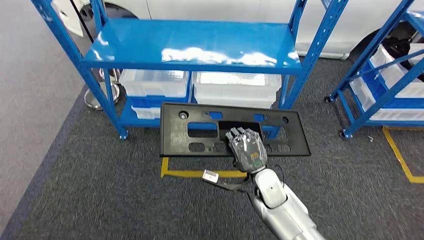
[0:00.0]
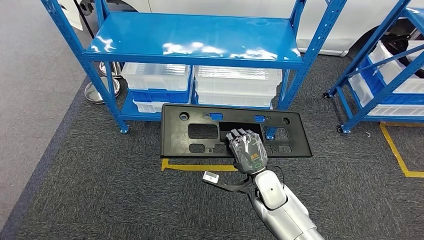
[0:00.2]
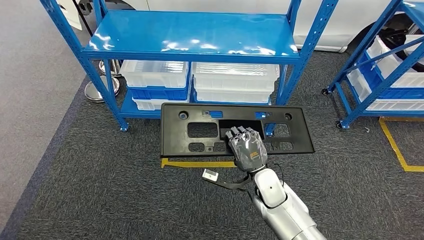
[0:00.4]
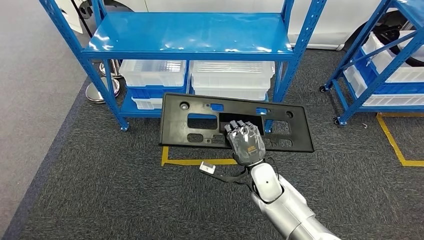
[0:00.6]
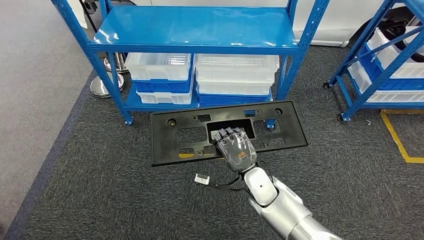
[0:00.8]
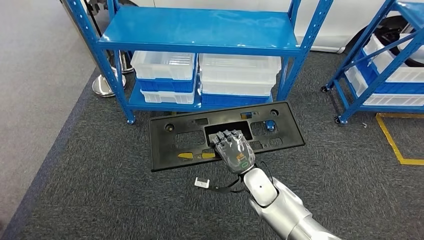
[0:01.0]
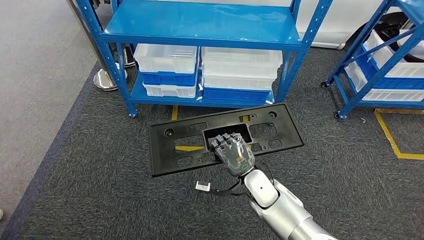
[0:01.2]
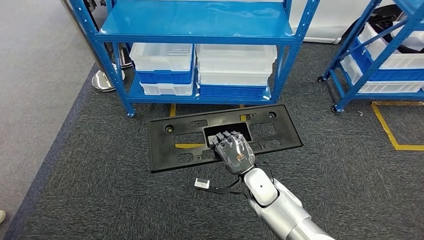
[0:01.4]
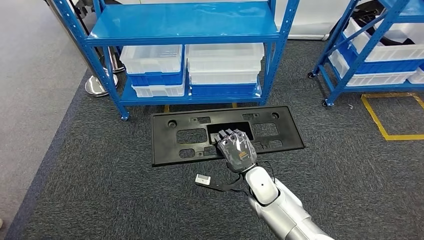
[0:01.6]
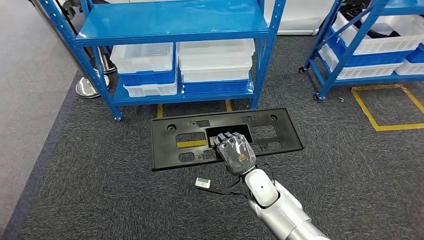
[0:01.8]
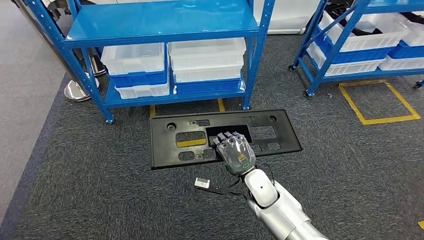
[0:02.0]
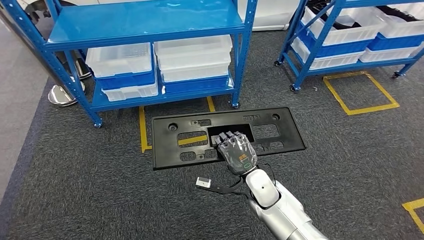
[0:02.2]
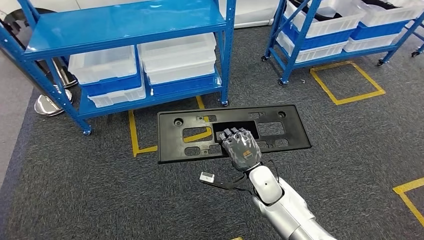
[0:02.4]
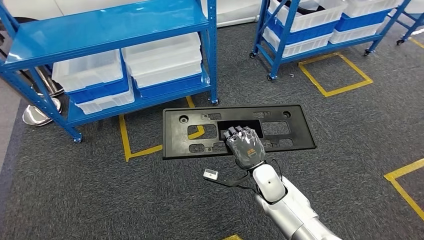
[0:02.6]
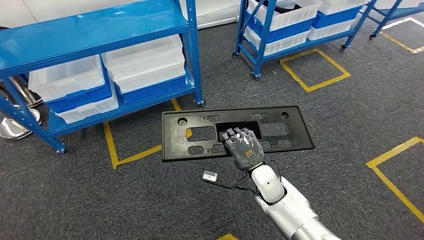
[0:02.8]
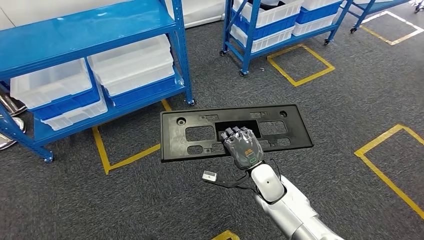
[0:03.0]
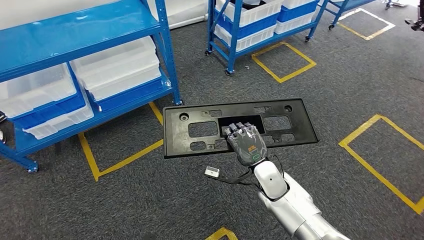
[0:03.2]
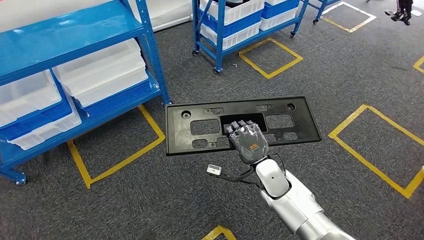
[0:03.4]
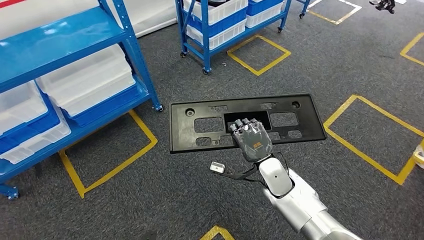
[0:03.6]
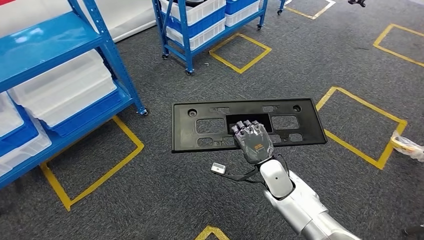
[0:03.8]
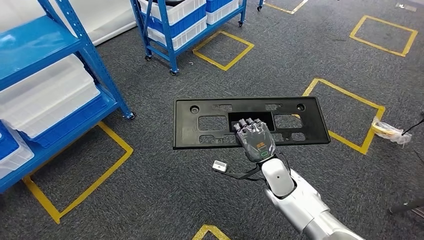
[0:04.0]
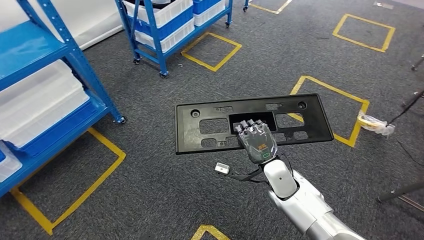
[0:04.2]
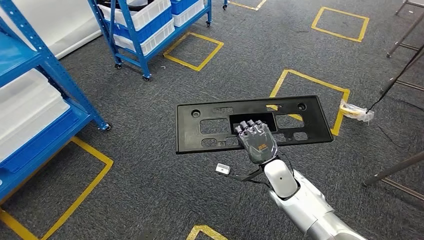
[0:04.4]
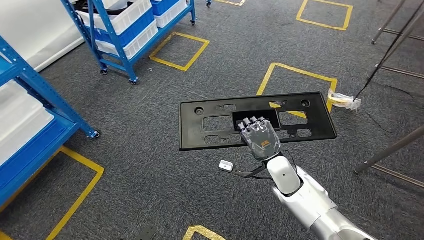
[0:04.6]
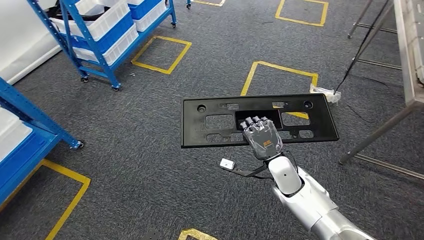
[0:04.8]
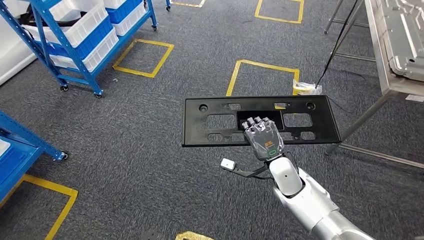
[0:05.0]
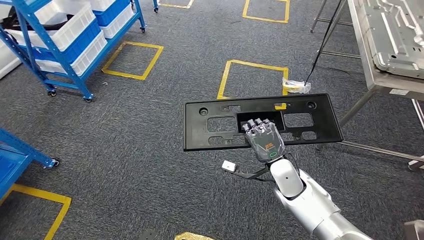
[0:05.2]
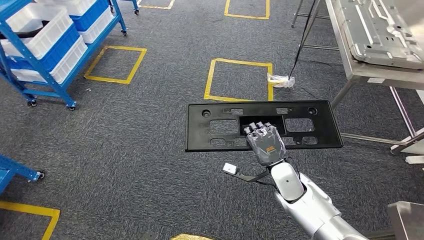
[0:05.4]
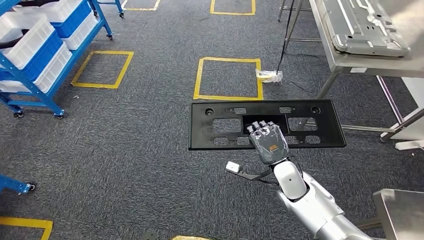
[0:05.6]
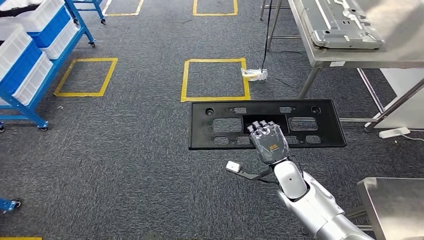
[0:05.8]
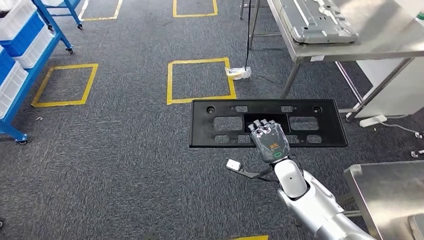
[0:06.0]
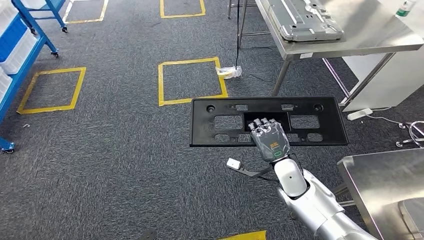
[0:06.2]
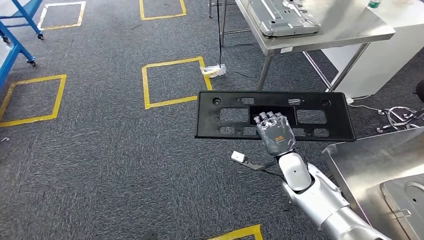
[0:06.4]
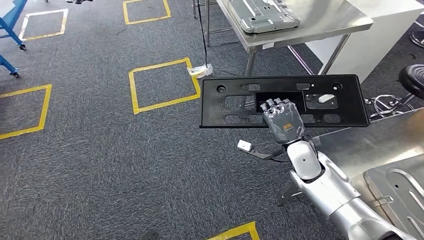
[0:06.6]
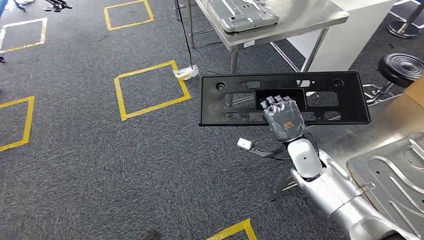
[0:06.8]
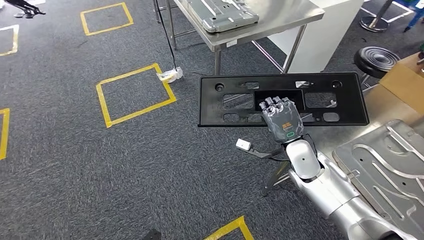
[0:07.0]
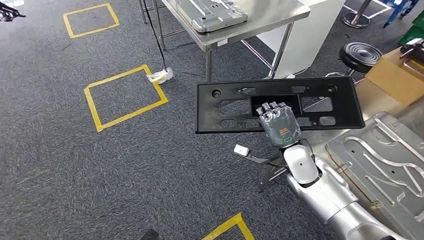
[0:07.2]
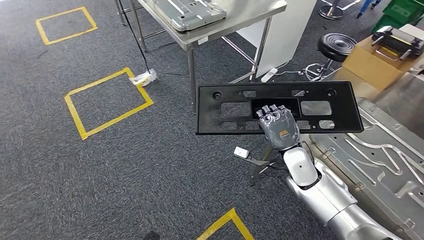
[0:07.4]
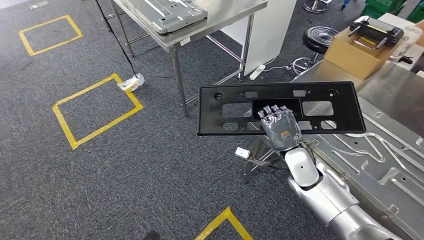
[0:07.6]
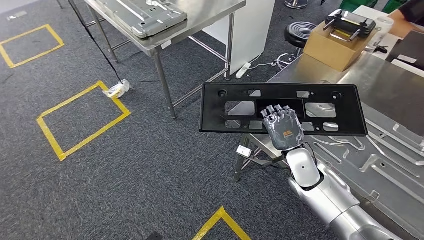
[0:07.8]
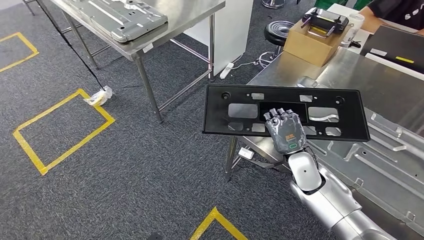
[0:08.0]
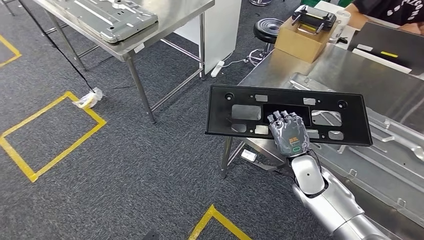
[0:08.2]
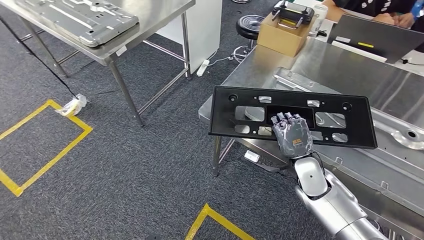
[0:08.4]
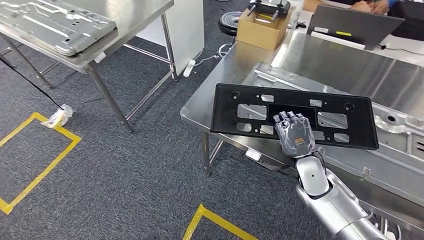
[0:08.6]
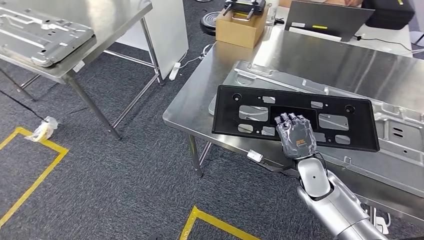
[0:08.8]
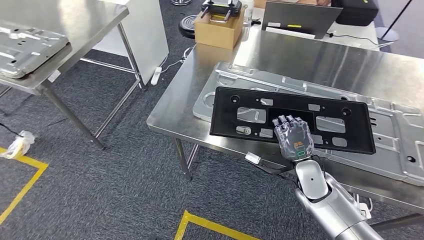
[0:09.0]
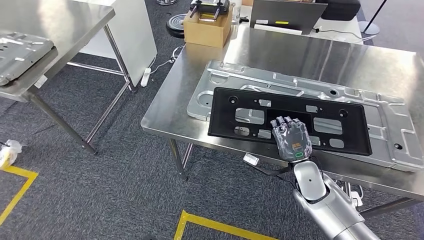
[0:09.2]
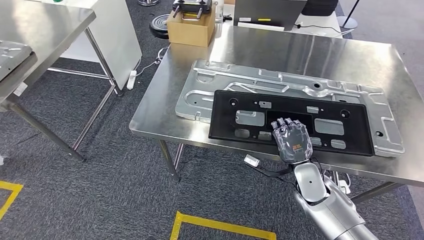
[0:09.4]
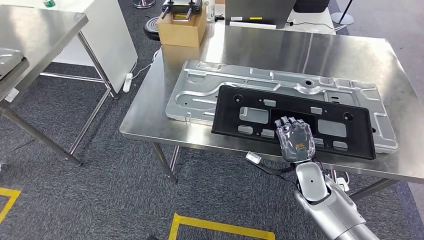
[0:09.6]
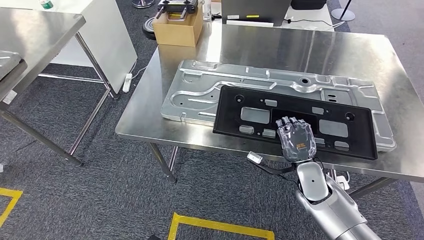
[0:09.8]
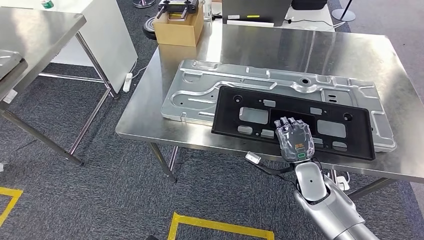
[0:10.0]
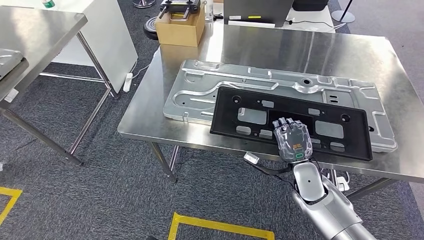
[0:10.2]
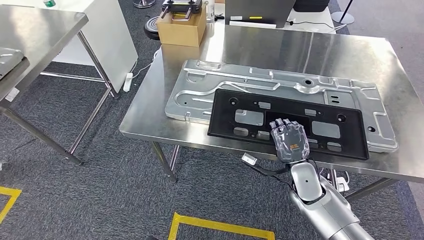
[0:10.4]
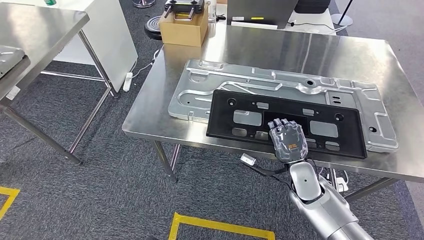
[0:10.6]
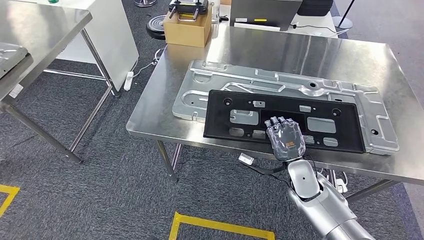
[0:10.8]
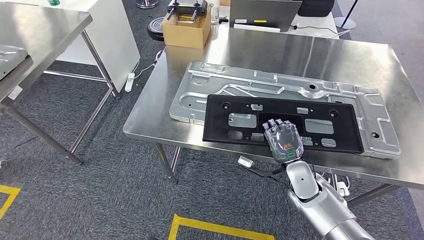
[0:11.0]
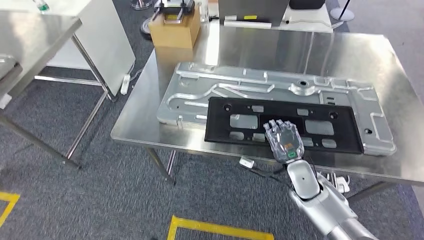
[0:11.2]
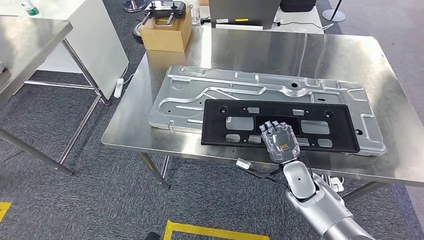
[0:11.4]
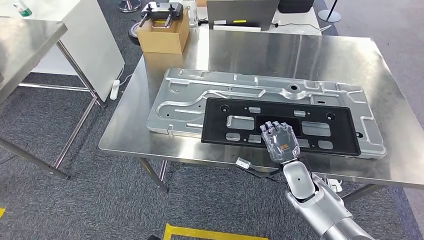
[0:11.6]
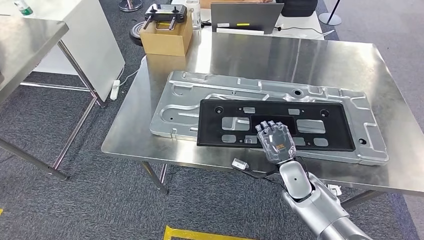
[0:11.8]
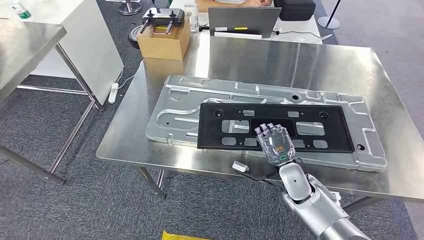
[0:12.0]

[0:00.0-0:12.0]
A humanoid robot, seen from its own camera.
Step, 0:00.0 to 0:06.8: Move the large material to the workbench.

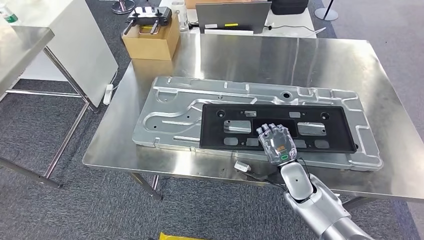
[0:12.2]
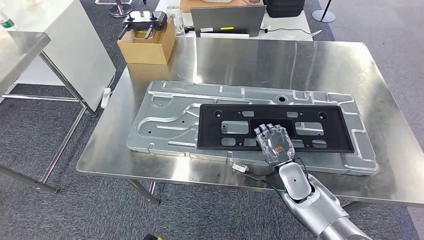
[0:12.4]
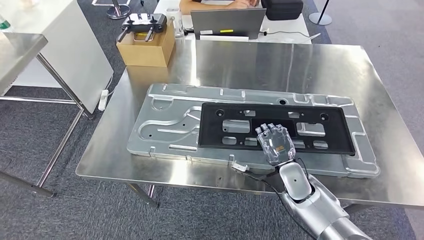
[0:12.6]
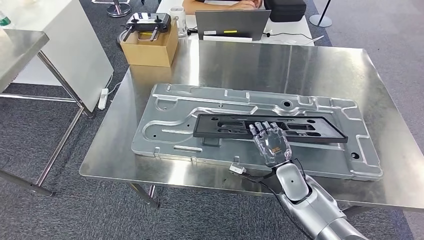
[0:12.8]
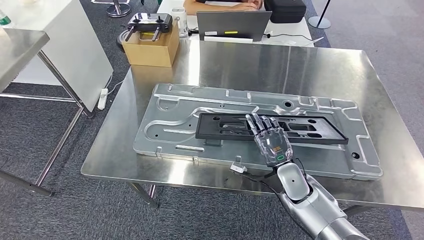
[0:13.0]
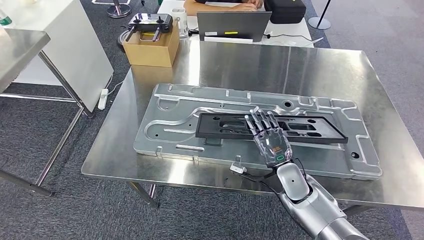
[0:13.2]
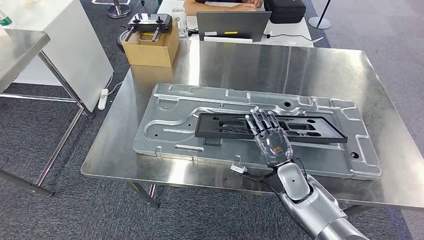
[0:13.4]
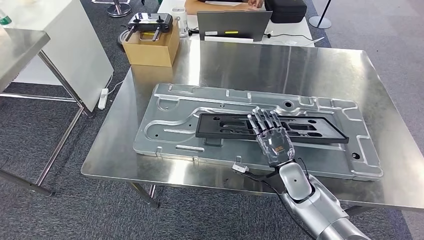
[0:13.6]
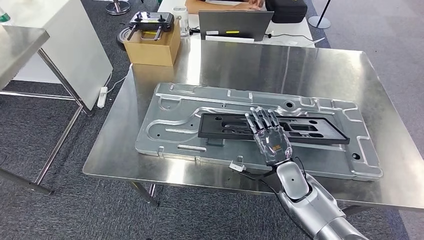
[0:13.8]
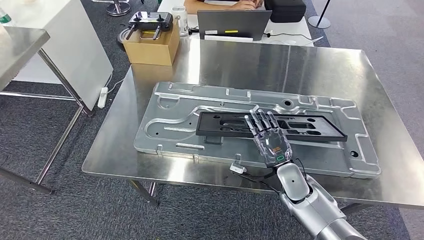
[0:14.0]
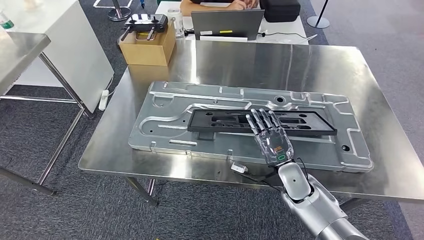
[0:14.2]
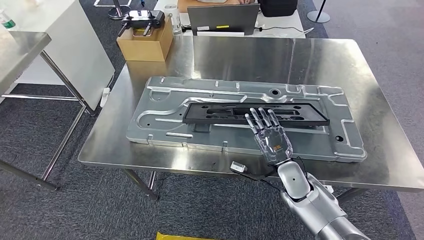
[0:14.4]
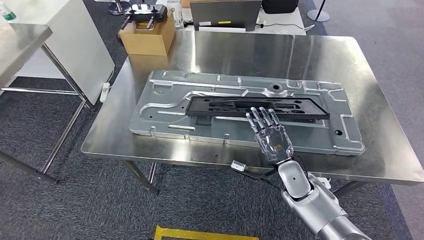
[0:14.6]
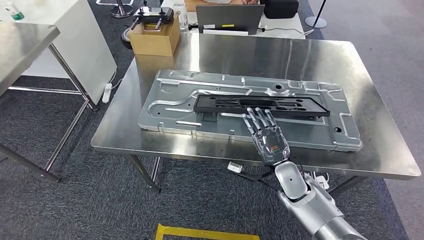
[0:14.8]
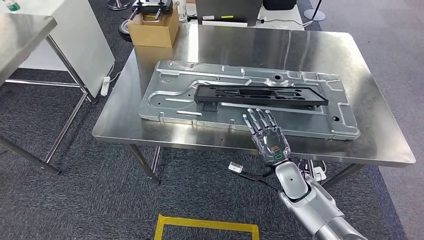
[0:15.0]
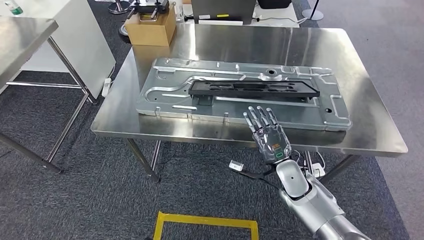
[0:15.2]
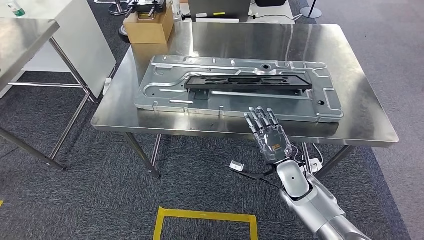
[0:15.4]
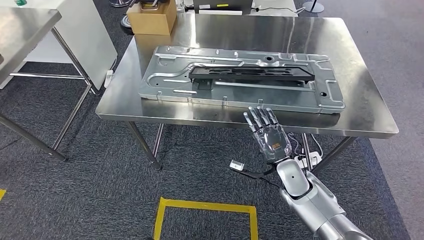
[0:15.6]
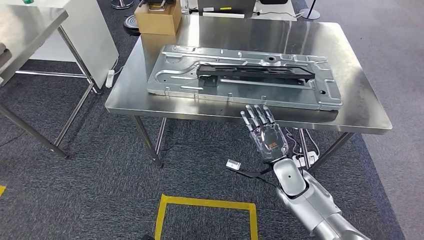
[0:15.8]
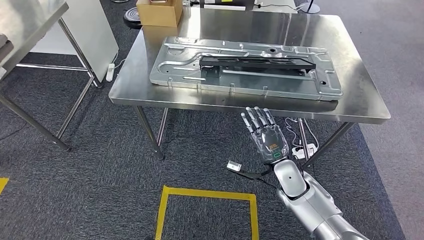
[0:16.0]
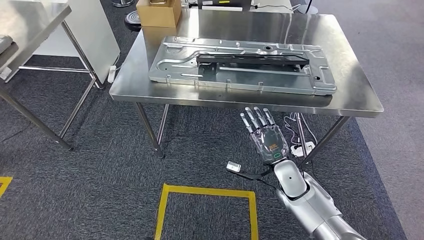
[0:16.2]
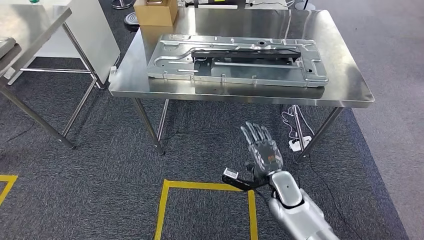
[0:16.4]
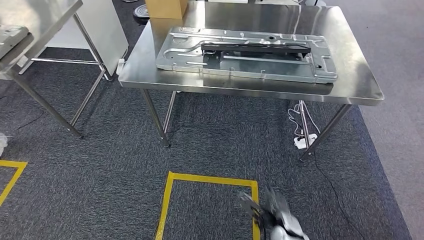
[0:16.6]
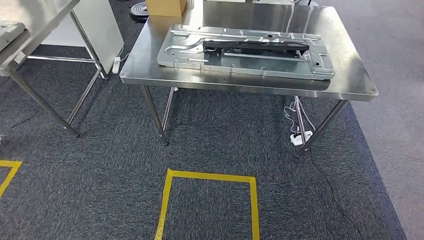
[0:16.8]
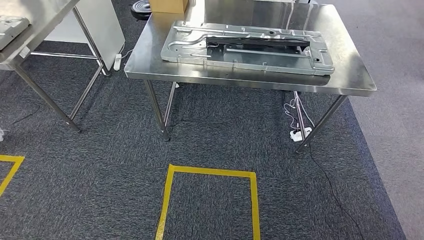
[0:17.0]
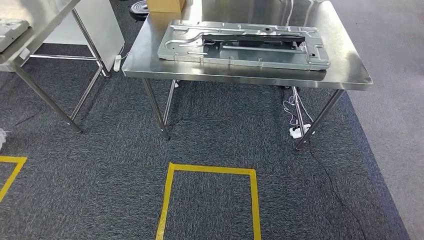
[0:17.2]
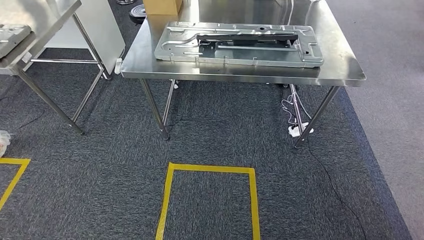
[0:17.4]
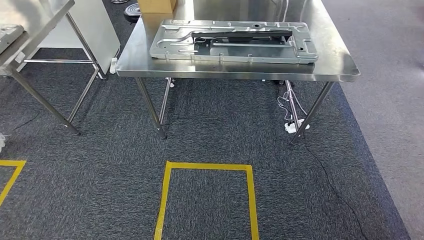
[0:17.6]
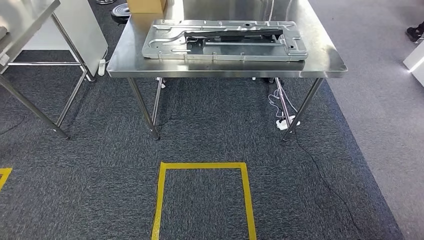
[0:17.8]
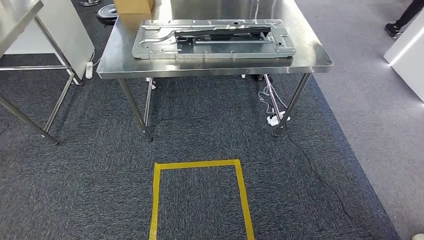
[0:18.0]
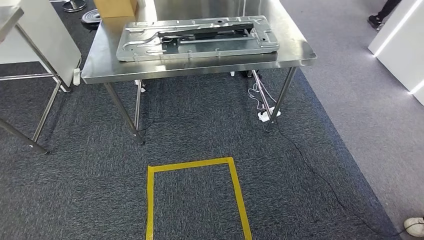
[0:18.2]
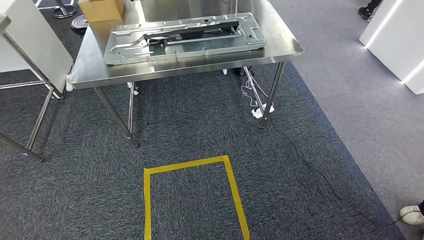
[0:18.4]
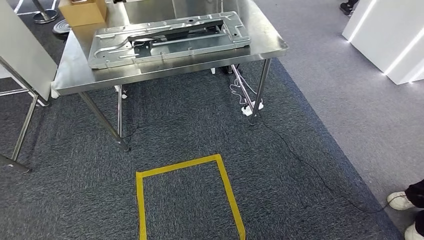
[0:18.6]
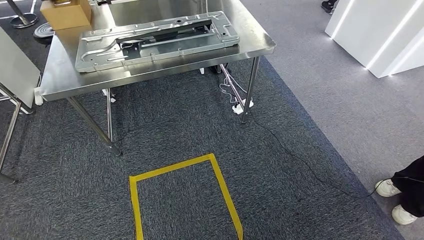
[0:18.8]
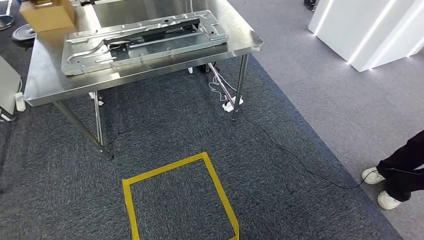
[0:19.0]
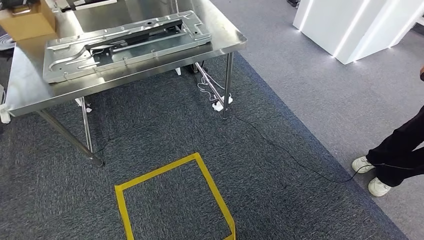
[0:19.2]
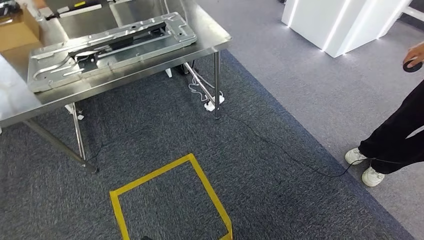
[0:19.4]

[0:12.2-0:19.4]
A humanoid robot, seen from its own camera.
Step, 0:12.2 to 0:15.4: Insert the large material into the corresponding slot on the workbench.
